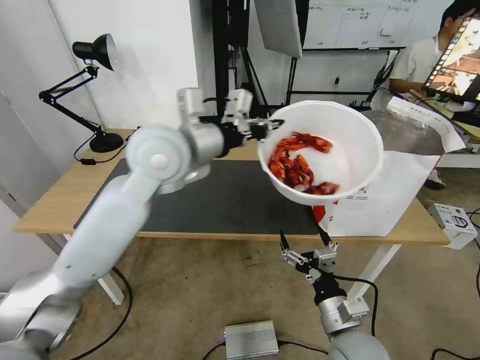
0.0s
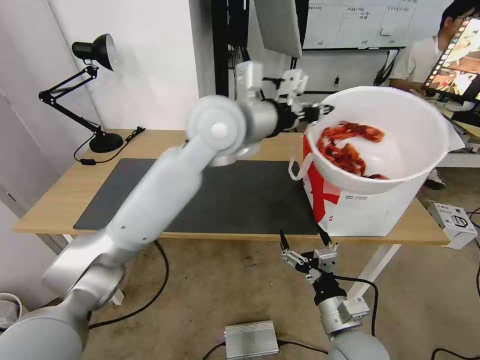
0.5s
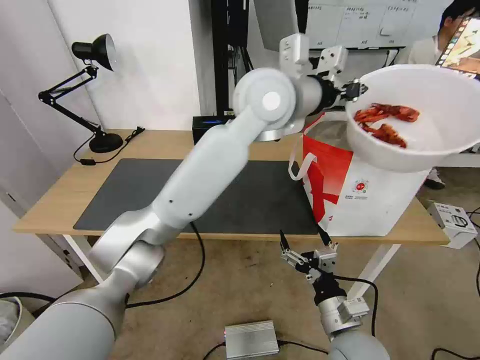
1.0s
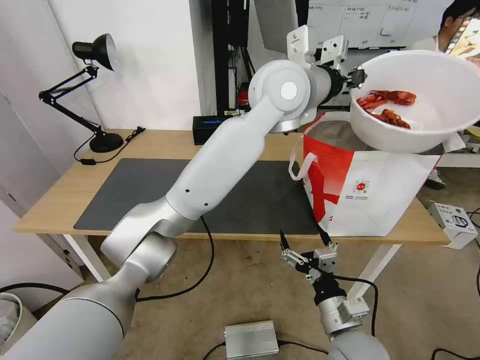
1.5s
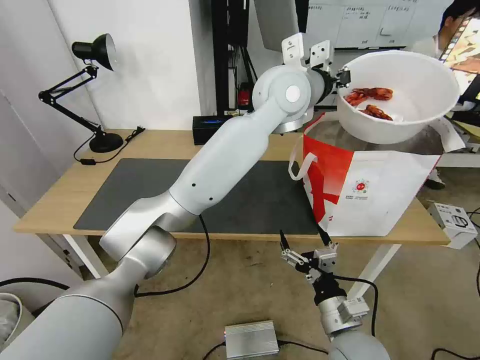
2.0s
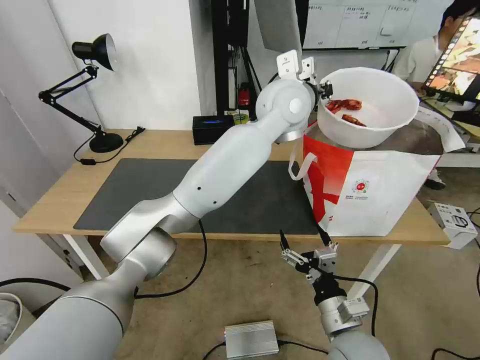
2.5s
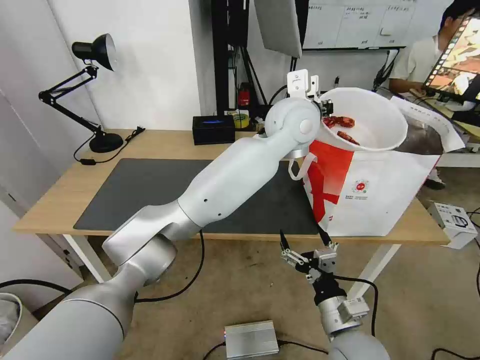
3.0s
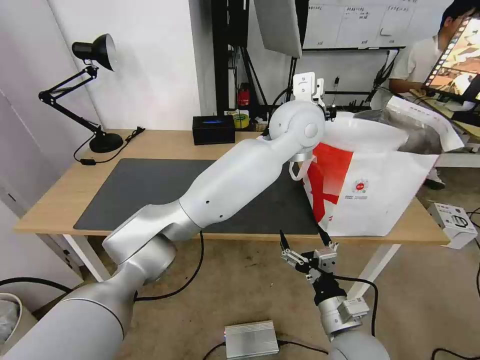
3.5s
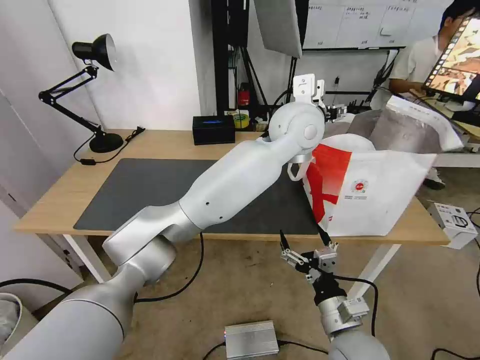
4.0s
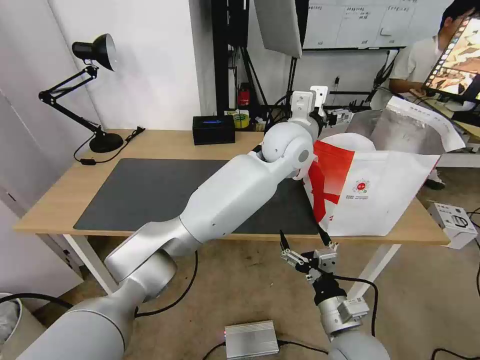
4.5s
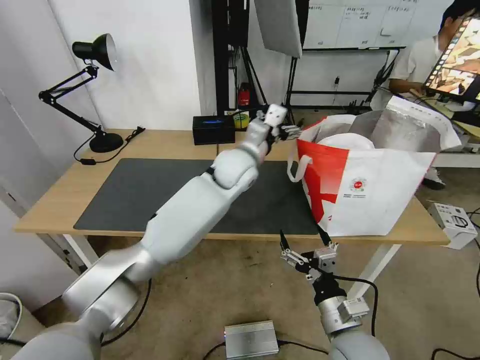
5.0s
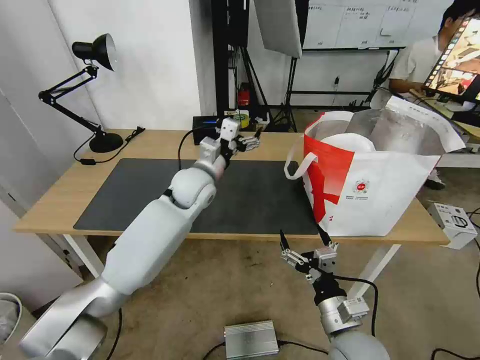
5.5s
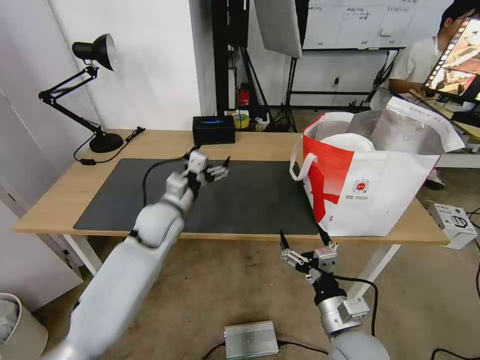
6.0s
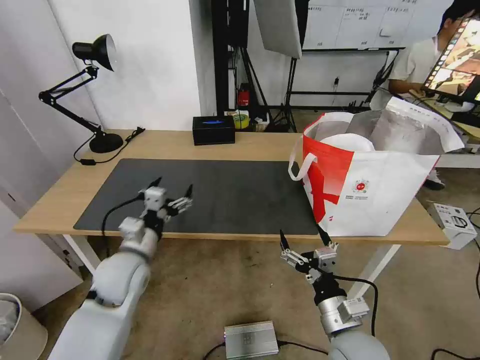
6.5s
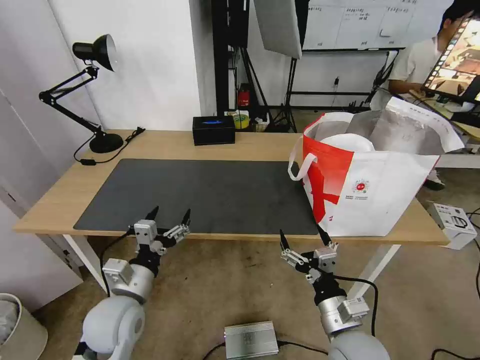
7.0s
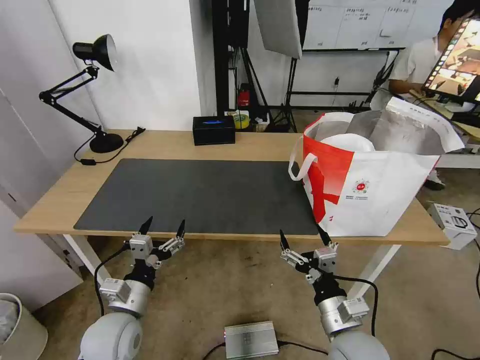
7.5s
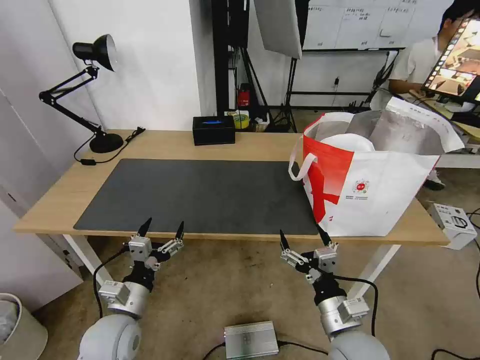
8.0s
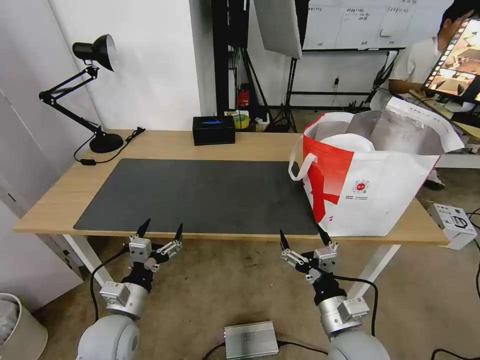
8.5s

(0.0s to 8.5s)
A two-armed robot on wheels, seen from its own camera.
Task of the whole recording: Pick up the trash from the table and place it into the takeout bag.
0.0s - 2.0s: The left gripper goes approximately 20 cm to the right and forward.
2.0s - 4.0s: The left gripper goes approximately 5 cm downward, and opens its fingers.
4.0s - 6.5s: The left gripper is displaced to the left, downward and backward by some 50 cm.
6.5s - 8.5s: The left gripper is displaced backward and downward by about 10 cm.

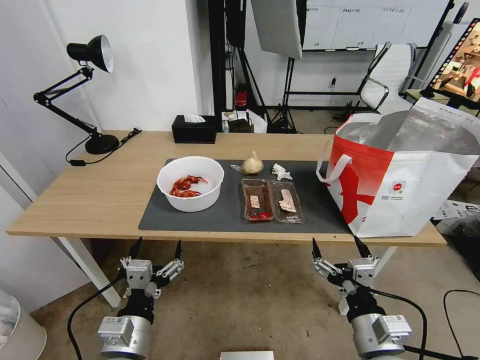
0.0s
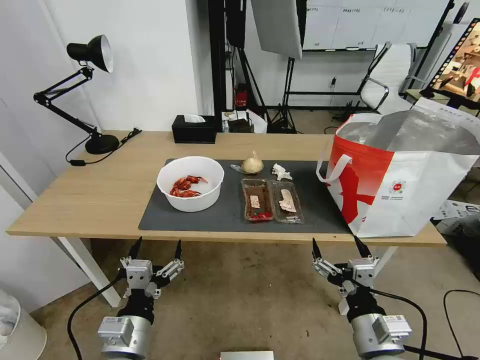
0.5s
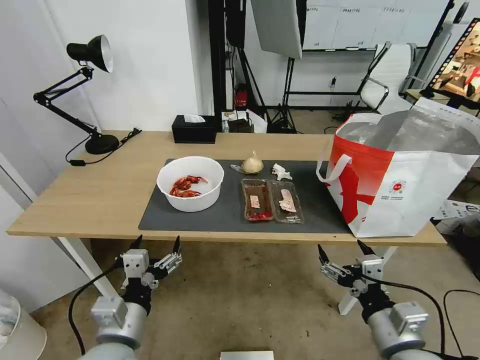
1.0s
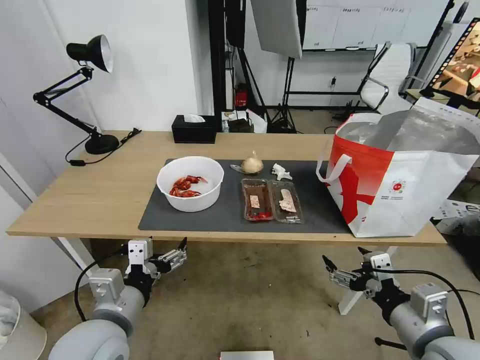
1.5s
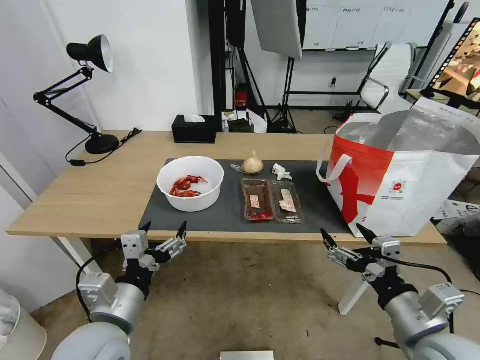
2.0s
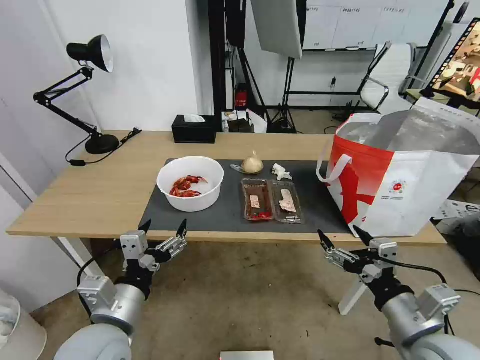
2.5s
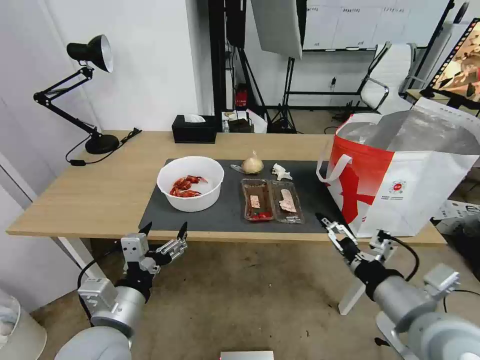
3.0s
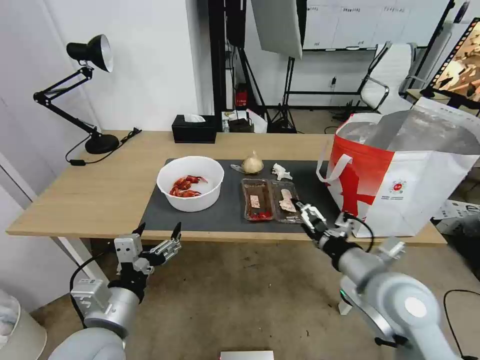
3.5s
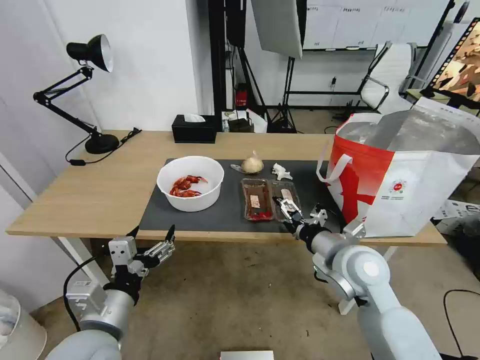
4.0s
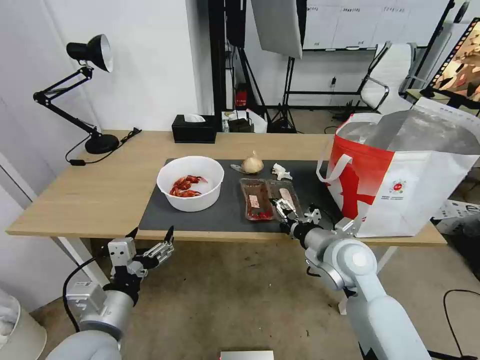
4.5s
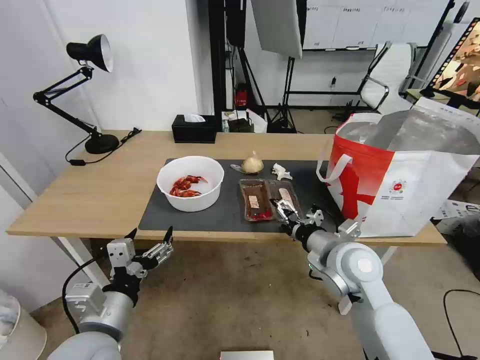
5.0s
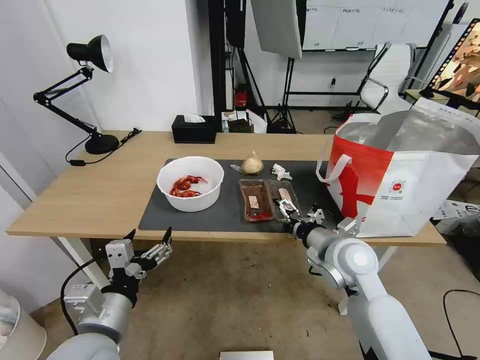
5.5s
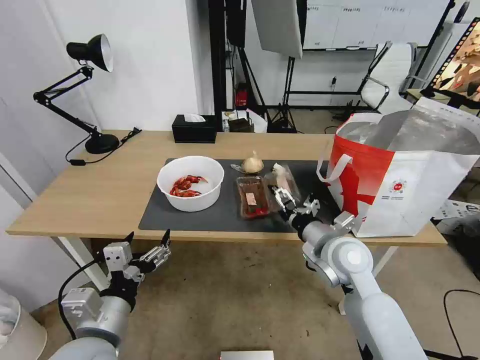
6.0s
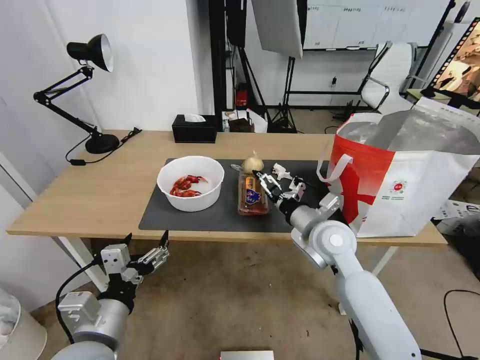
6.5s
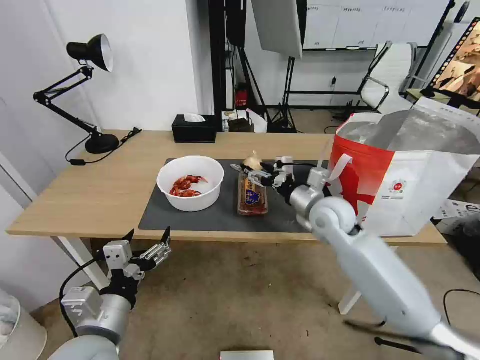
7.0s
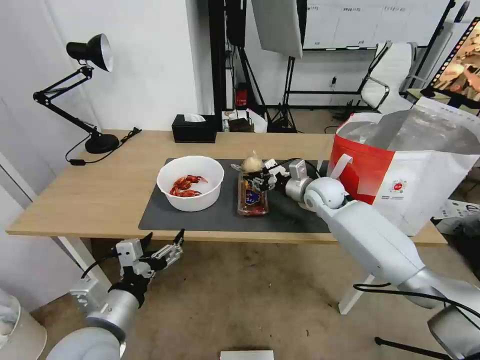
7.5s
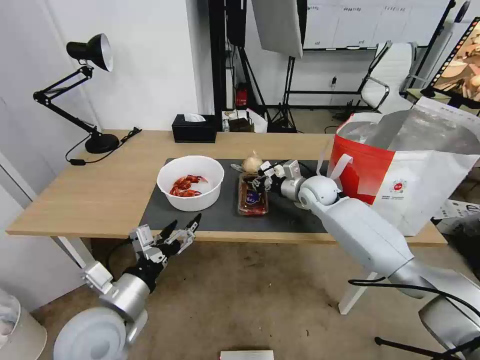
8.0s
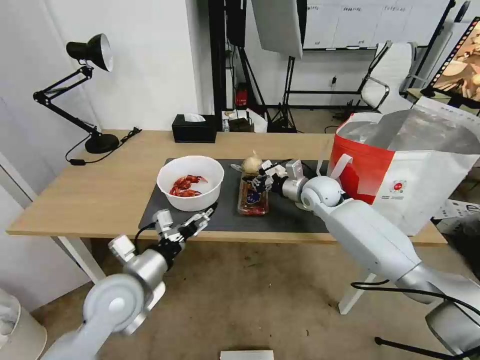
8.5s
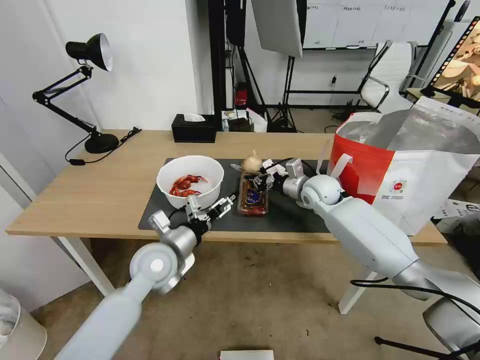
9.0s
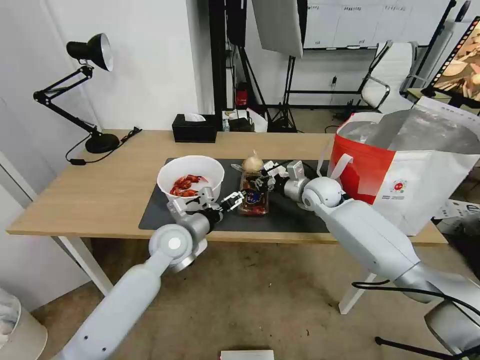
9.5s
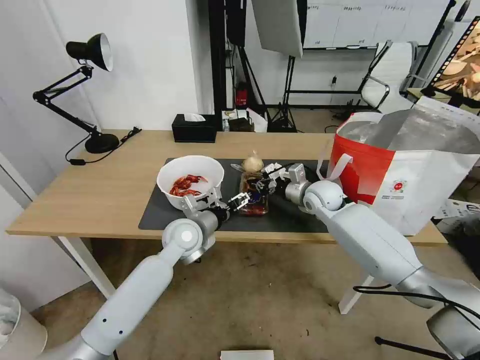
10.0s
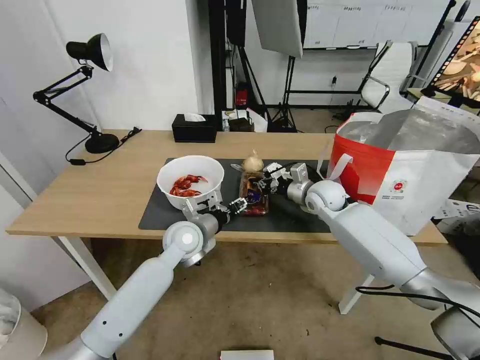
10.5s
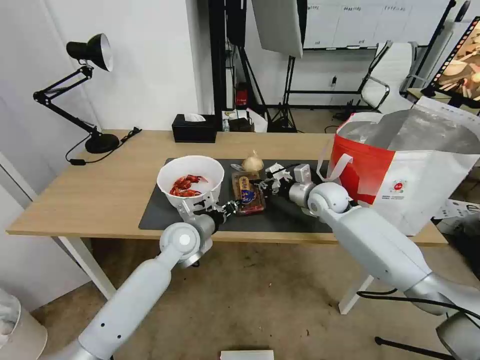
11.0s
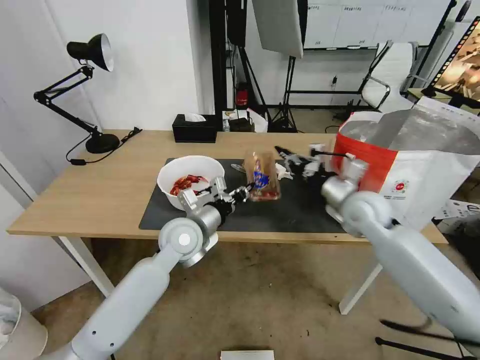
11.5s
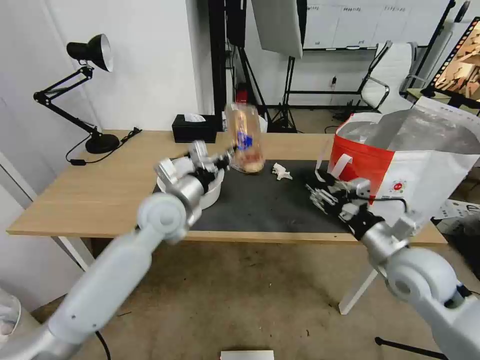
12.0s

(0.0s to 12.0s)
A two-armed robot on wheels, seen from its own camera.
Task of the whole recording: Pick up the trash from the table and place it into the takeout bag.
2.0s - 4.0s: The right gripper shifts some 15 cm forward and to the left.
4.0s - 6.0s: The grippers stay close to where they were, moving slightly.
6.0s - 8.0s: The right gripper travels forward by approximately 20 cm, and closes.
8.0s - 10.0s: The left gripper goes some 25 cm forward and to the right.
10.0s - 12.0s: The left gripper moves upward, roughly 10 cm, and closes; the right gripper goes approximately 25 cm backward, and opens up.

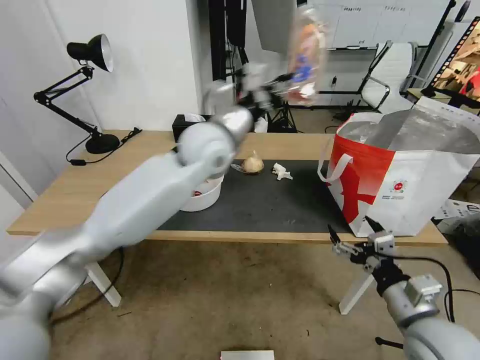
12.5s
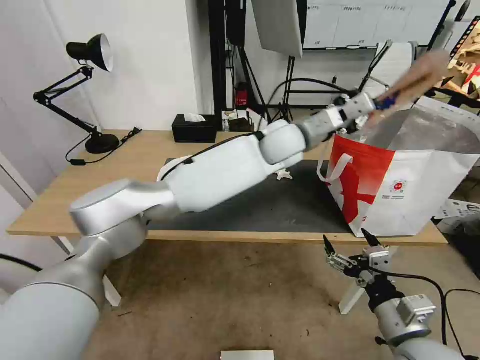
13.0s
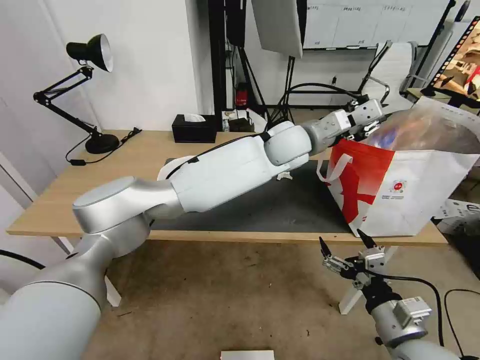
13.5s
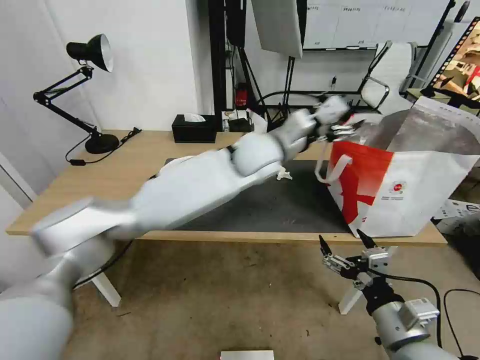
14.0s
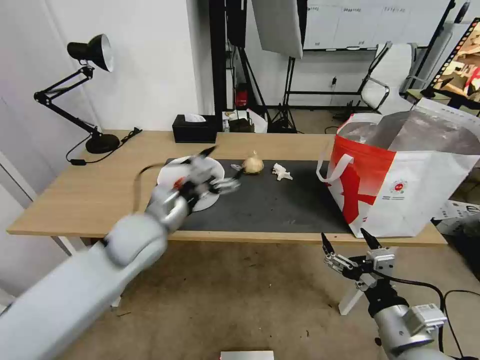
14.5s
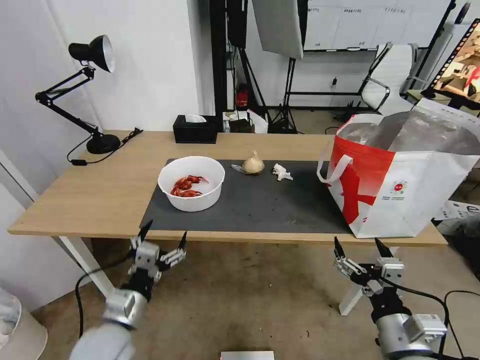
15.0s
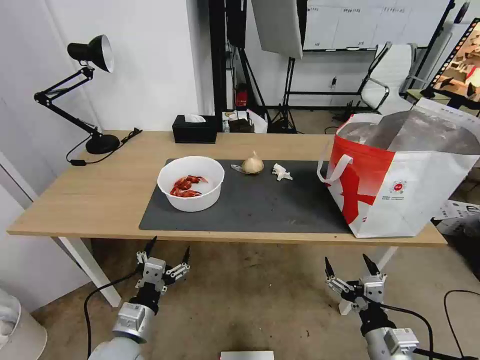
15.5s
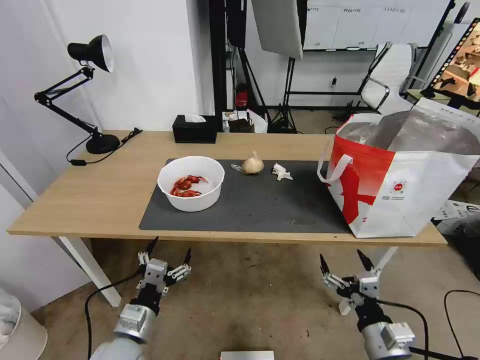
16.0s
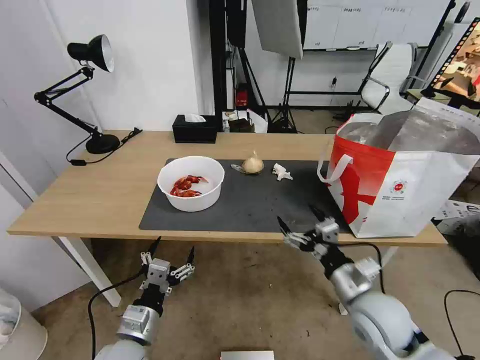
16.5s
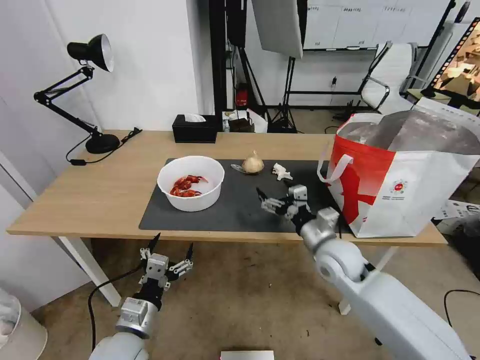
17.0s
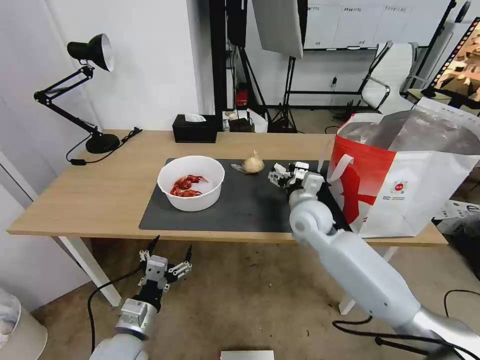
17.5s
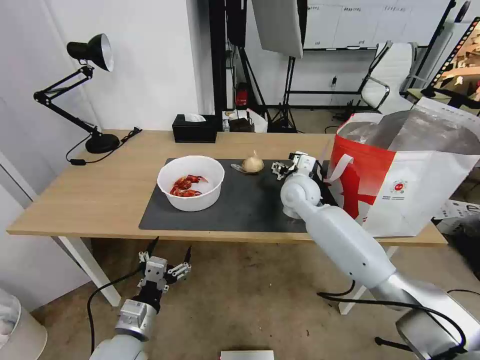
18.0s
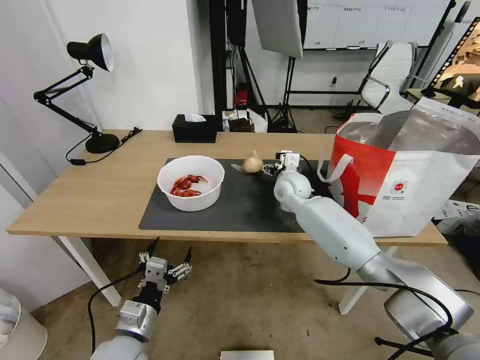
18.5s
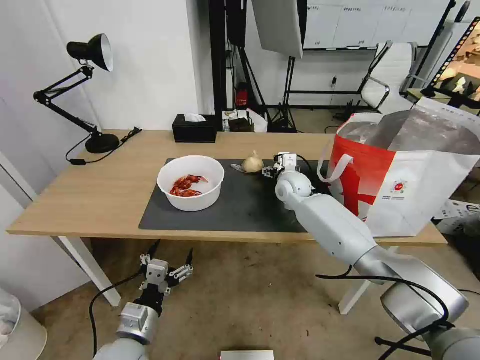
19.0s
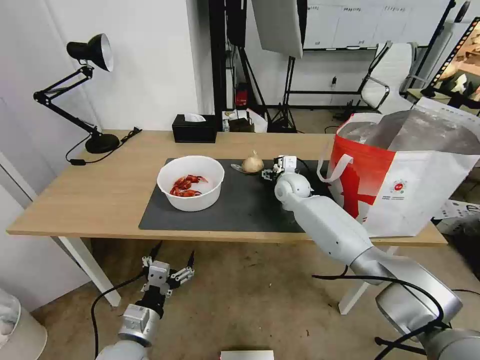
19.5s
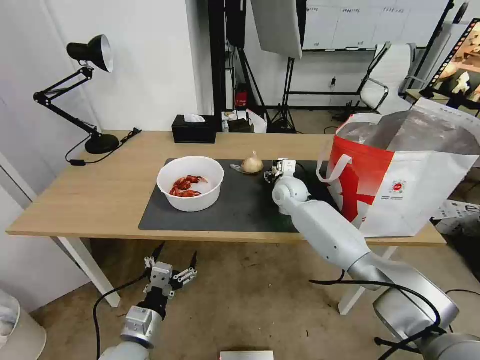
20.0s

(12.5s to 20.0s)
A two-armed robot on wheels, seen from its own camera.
Task of the whole recording: Pick up the trash from the table and place it into the takeout bag.
12.5s - 14.5s: The right gripper ends up some 5 cm from where it was; the left gripper travels to the left, downward and backward by about 25 cm, and opens its fingers.
14.5s - 16.5s: The left gripper goes some 25 cm backward and downward; the right gripper moves forward, about 10 cm.
16.5s - 18.0s: The right gripper heads forward, covering some 30 cm.
18.0s - 20.0s: The right gripper goes about 10 cm forward and downward.
